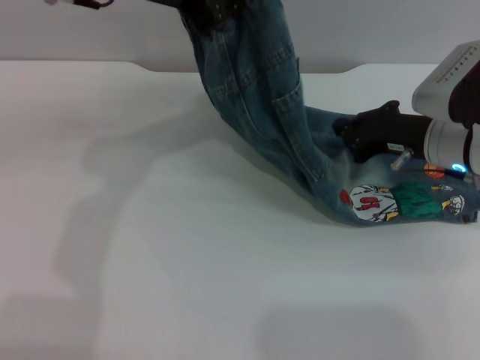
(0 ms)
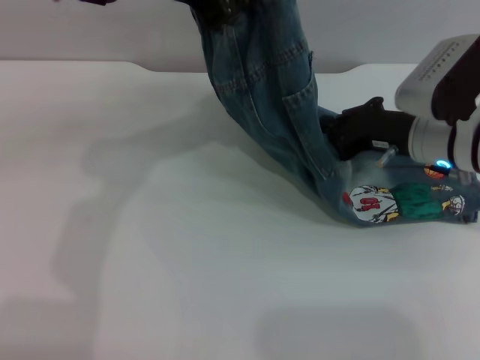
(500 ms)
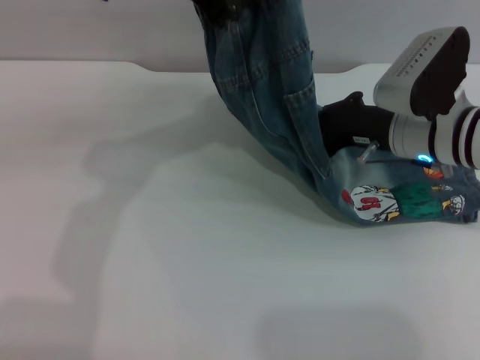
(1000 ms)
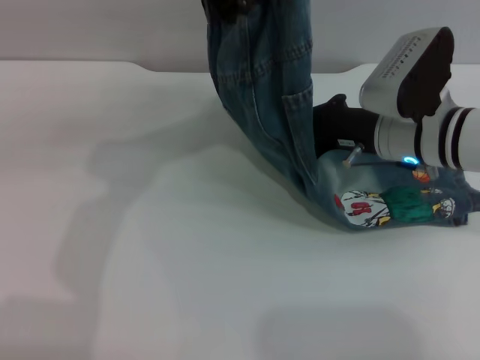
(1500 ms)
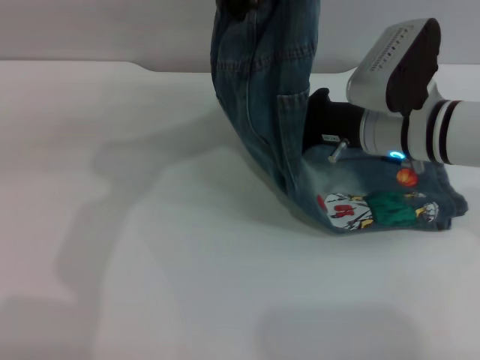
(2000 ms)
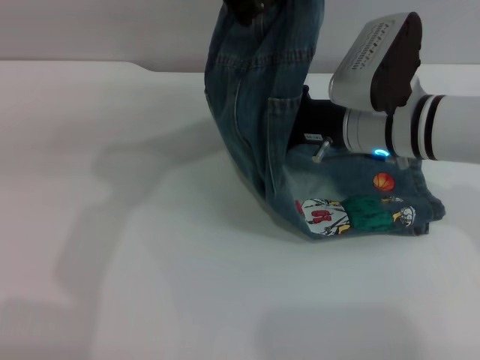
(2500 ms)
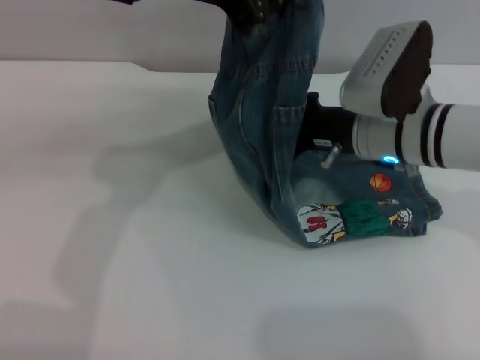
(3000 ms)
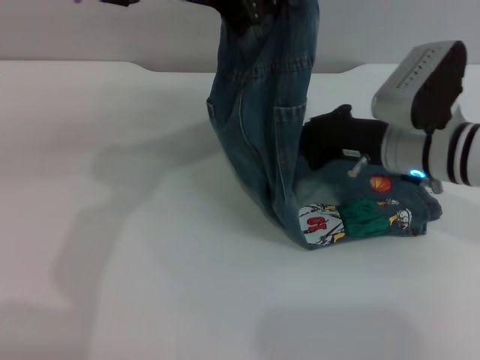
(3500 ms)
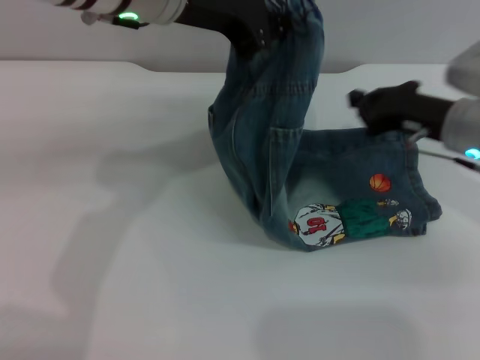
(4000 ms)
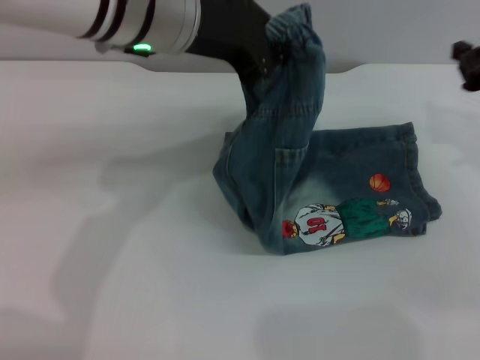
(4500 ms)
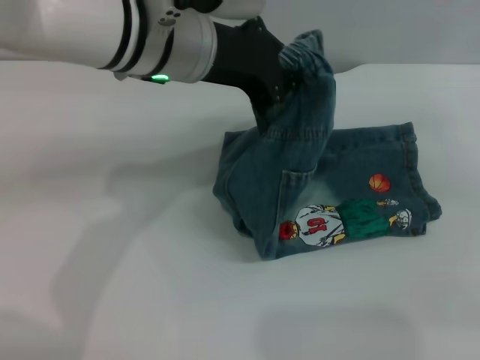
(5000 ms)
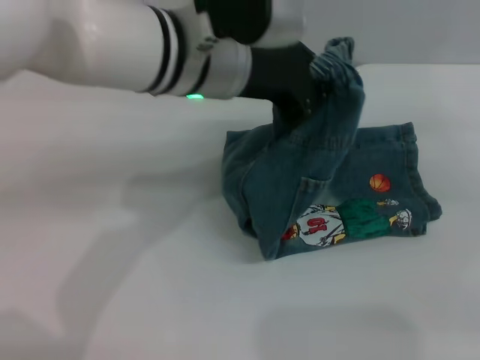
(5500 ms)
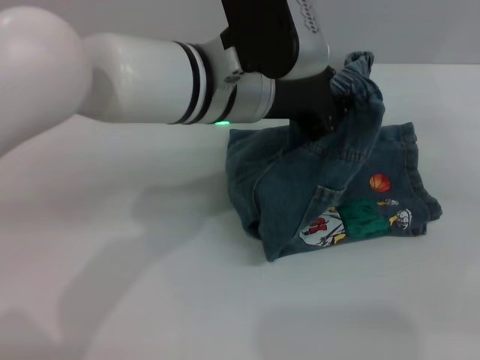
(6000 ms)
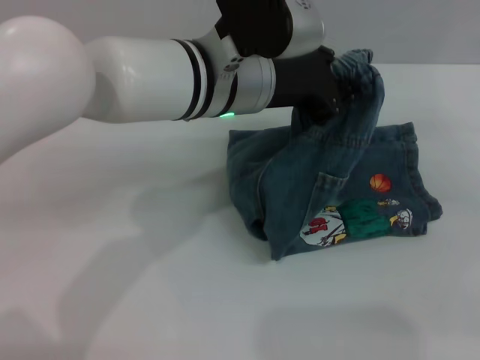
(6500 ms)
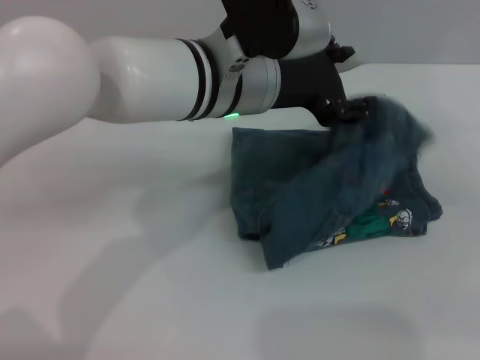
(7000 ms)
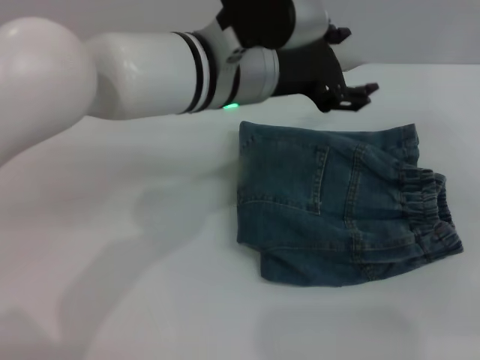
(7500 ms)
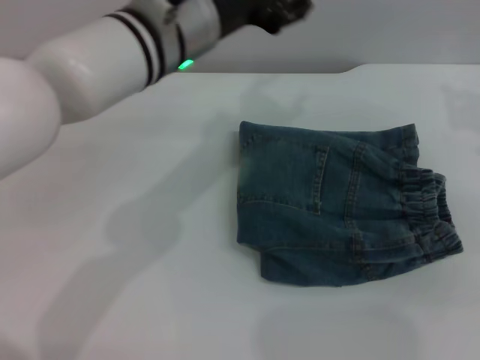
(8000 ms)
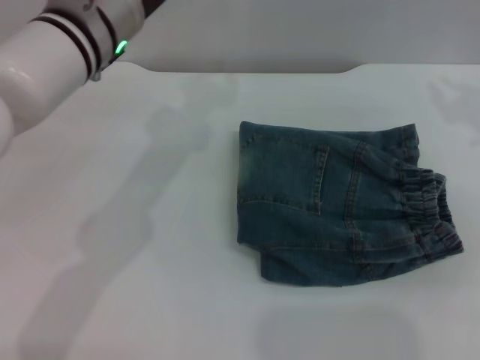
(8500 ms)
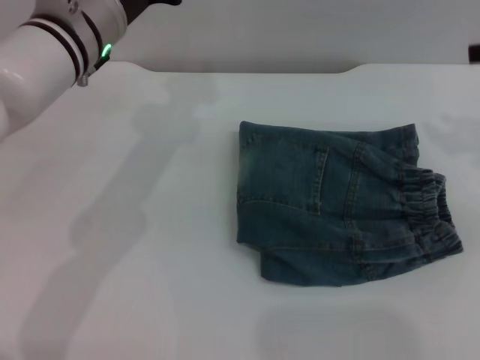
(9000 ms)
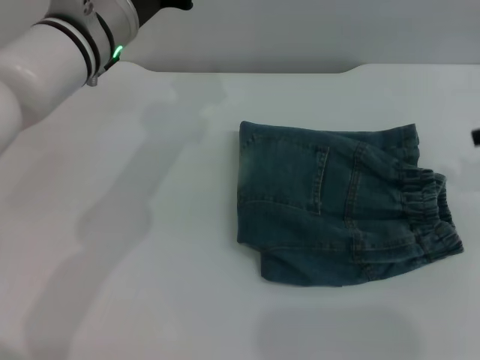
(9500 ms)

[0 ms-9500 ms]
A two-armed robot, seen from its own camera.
Step, 0 ms to 7000 ms: Fold the pants from left to right with the left gripper.
0 ms to 2000 ms: The right gripper moves to the left, about 5 cm.
2000 ms to 4000 ms: The right gripper goes approximately 10 cm to the right.
4000 ms to 5500 ms: The right gripper heads to the right and upward, covering some 15 cm; the left gripper heads downward, covering some 5 cm.
5500 ms to 7500 ms: The left gripper opens.
7500 ms to 9500 ms: The left gripper heads to the left, covering approximately 10 cm, and closes up. The right gripper moves upward, about 5 cm, and opens its fingers.

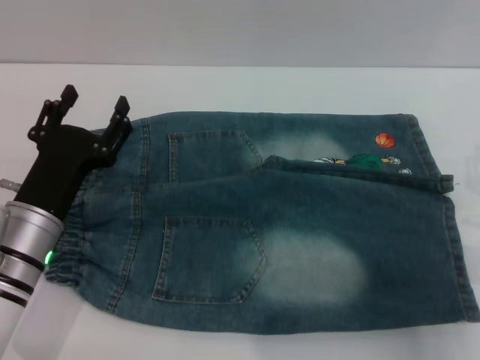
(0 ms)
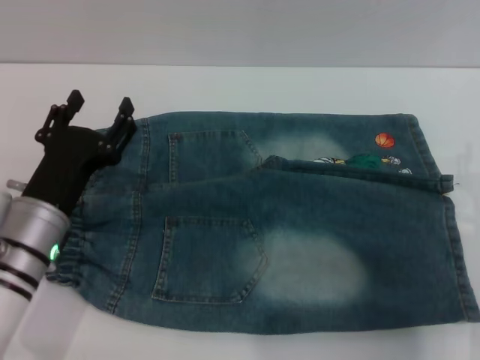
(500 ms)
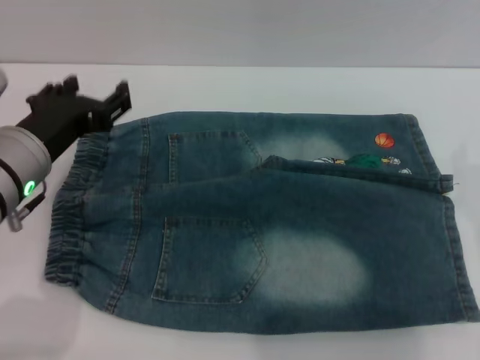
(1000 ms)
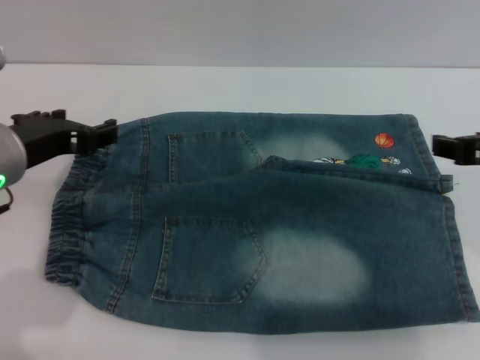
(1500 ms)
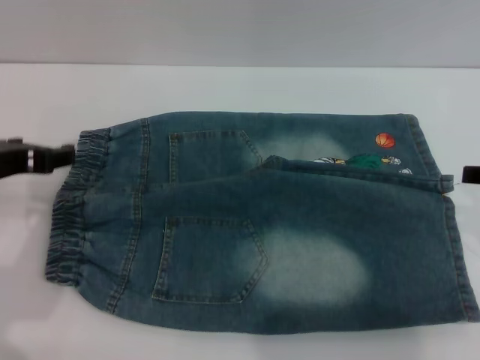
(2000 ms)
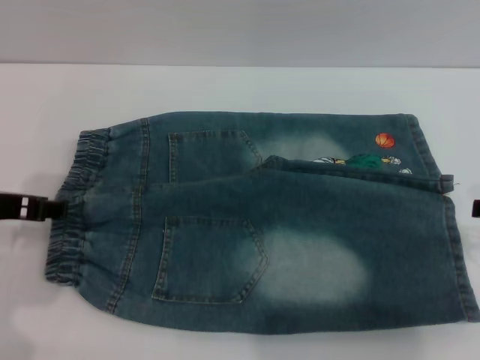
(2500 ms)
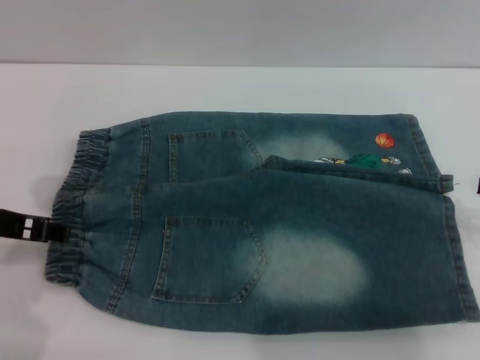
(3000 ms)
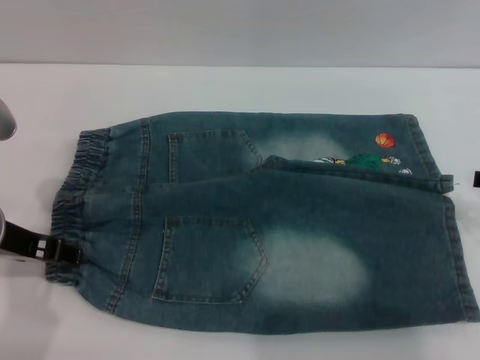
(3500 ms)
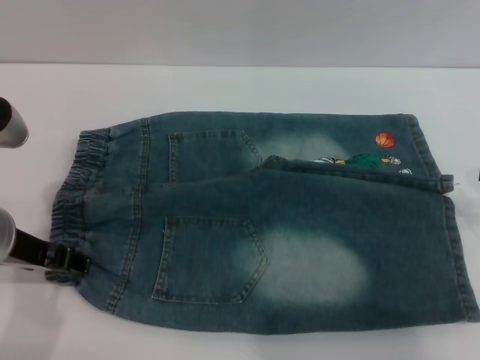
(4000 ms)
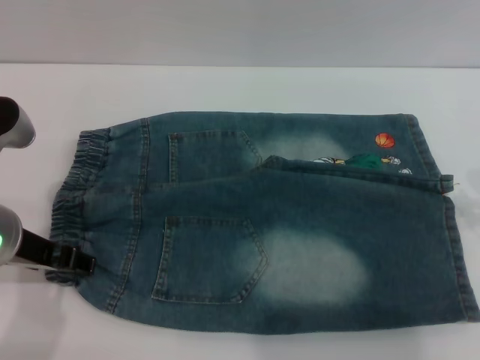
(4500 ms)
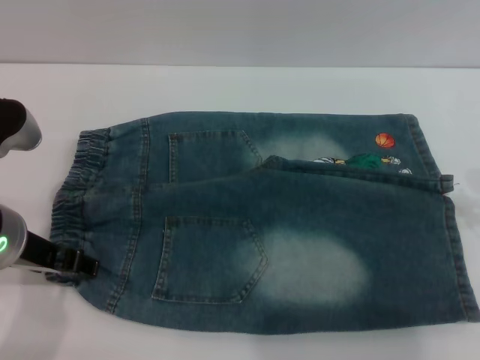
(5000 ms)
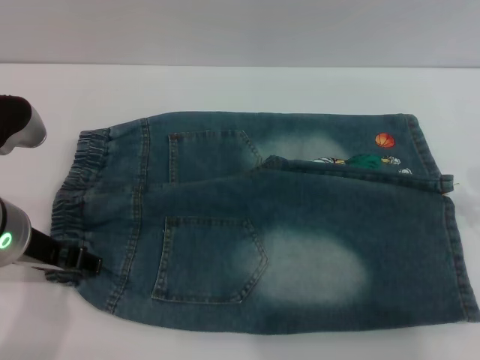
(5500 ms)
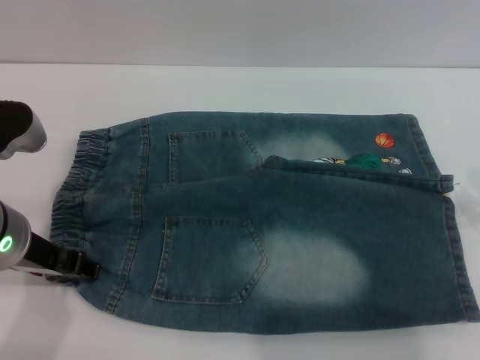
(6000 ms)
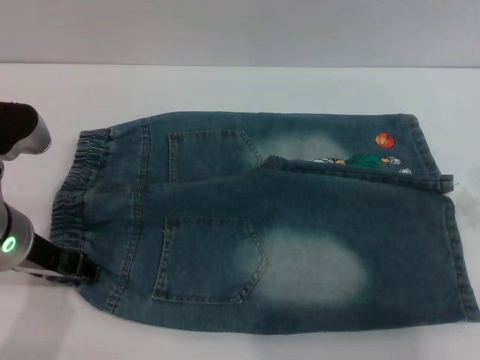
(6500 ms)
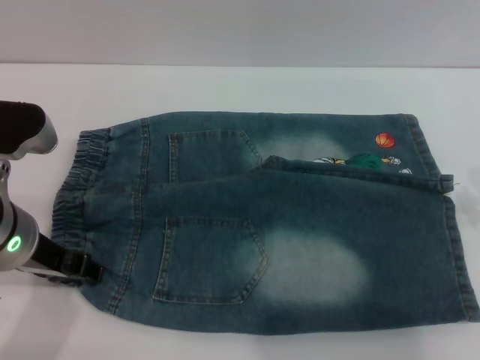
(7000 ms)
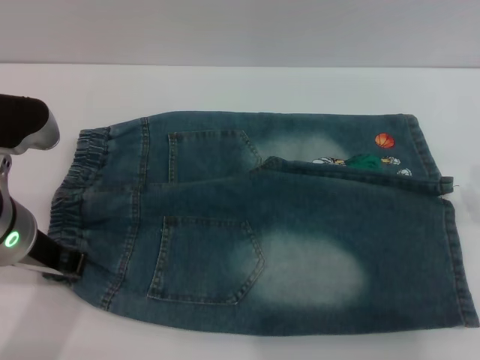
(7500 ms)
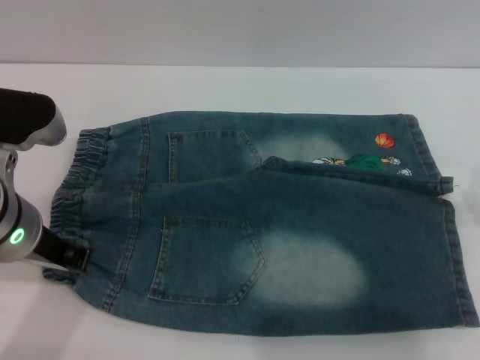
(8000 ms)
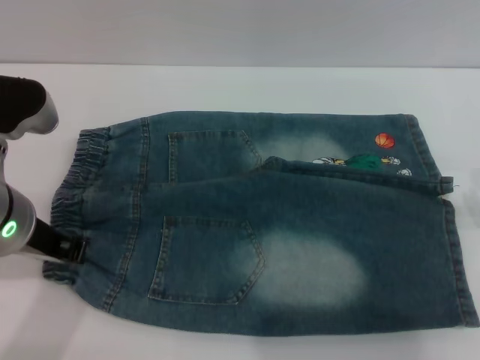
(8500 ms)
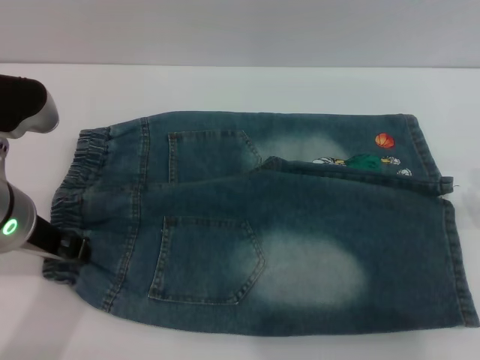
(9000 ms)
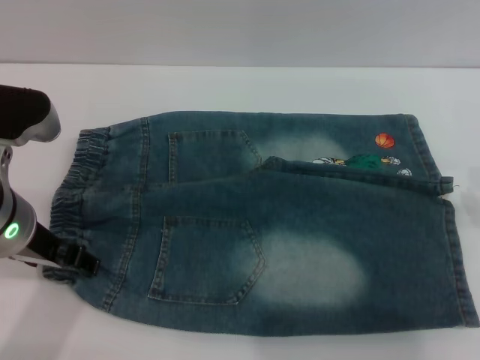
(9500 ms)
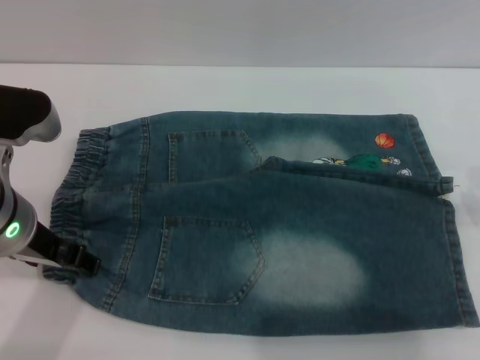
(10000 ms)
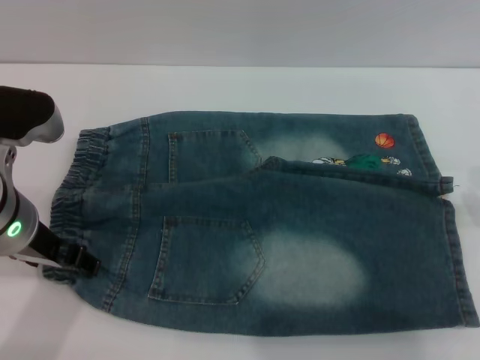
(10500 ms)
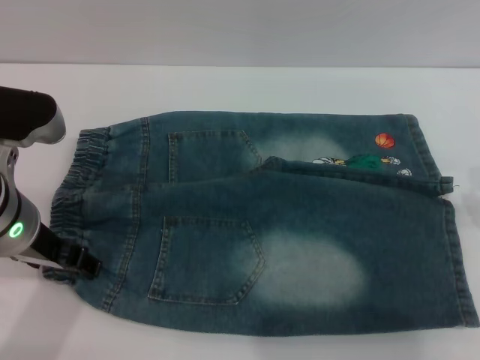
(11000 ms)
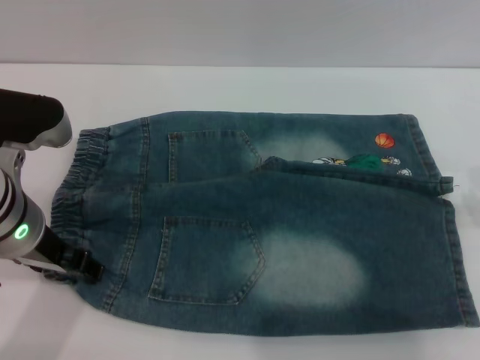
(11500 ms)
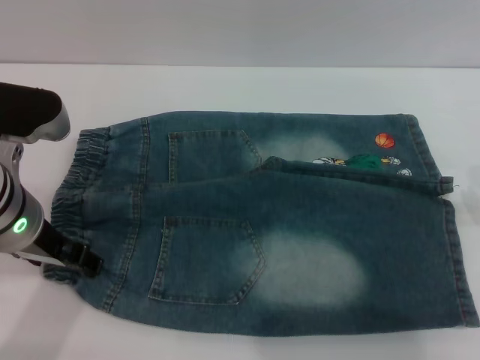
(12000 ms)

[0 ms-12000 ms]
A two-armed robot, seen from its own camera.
0 ms to 2000 ms: Both grippers travel together upward, roughly 15 cm.
4000 ms to 6000 ms: Both grippers stay about where they are.
6000 ms to 8000 ms: The left gripper closes its fingers.
8000 ms to 10000 ms: The left gripper opens up.
10000 ms to 12000 ms: Neither gripper changes place.

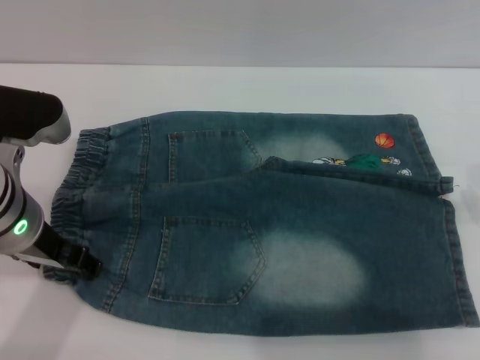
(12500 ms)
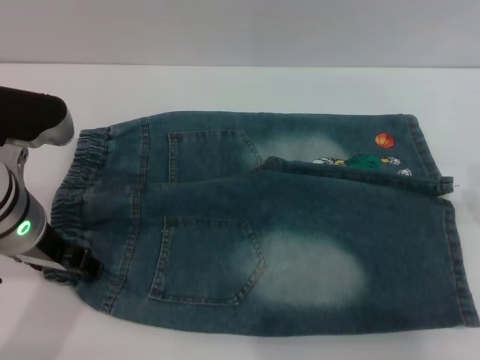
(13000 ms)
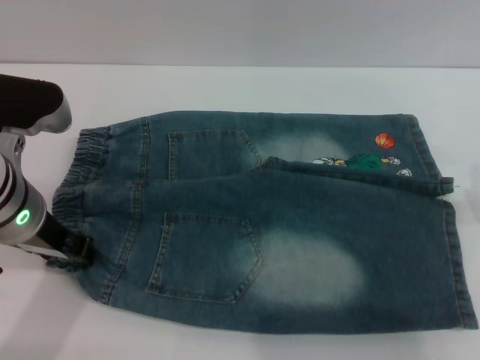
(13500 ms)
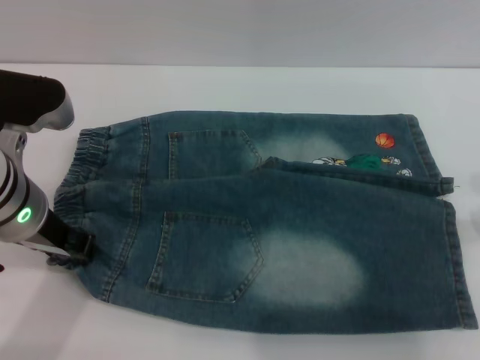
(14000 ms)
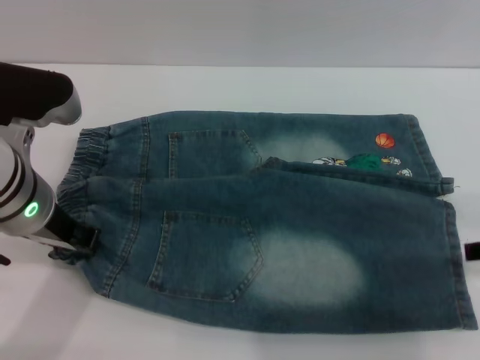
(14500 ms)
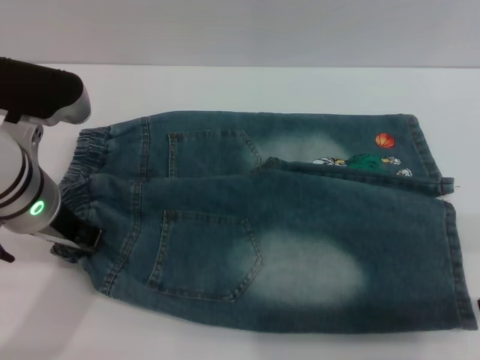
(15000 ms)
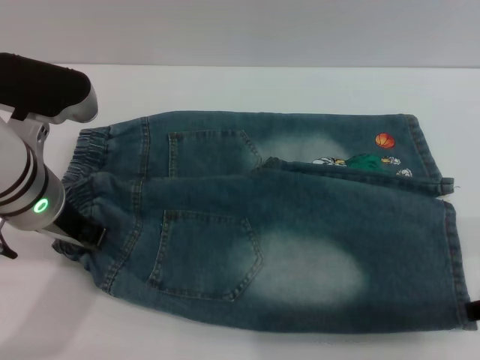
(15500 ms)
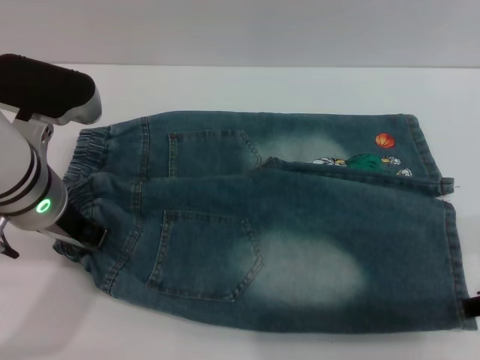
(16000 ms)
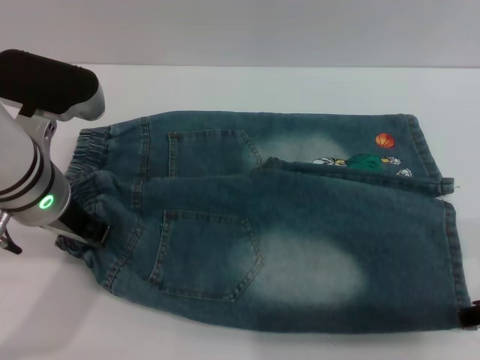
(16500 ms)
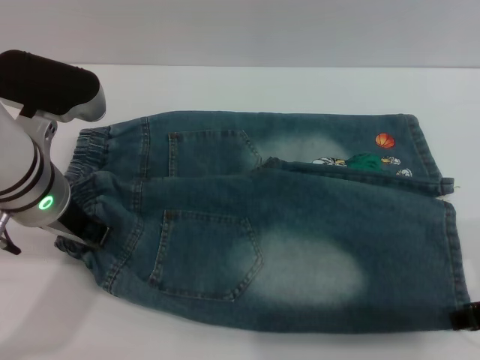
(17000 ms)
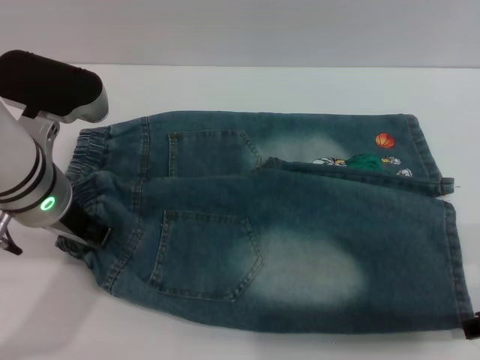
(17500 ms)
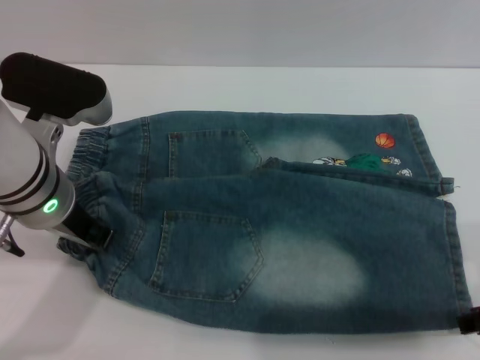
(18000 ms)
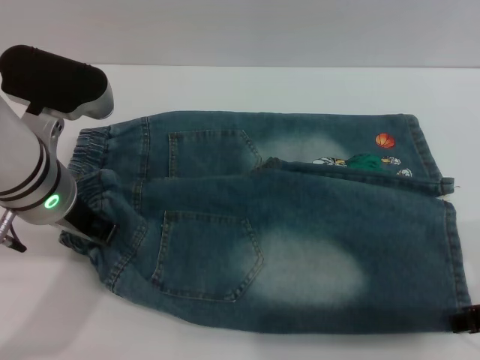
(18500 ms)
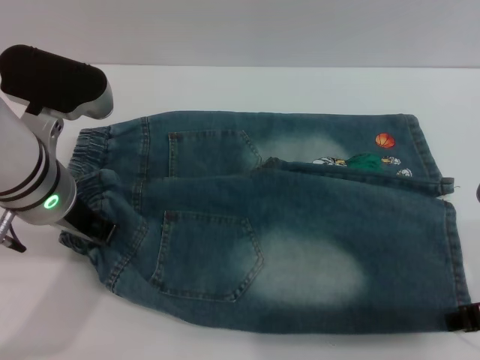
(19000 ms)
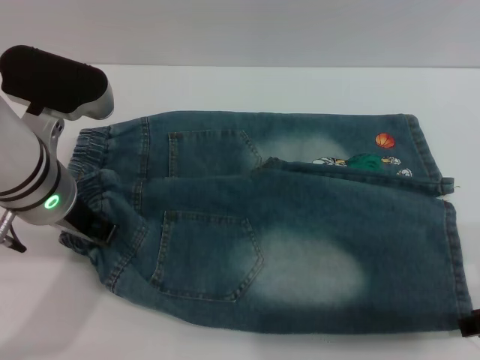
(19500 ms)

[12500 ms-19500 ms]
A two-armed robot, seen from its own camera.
12500 ms to 14500 ms: The left gripper closes up.
14500 ms to 17500 ms: There are only small adjustments of the grippers.
17500 ms to 19500 ms: The two grippers keep their place.
